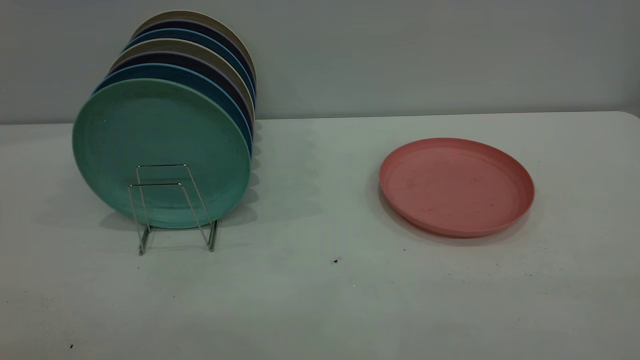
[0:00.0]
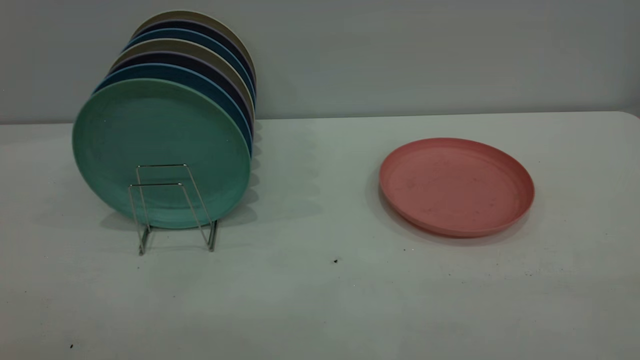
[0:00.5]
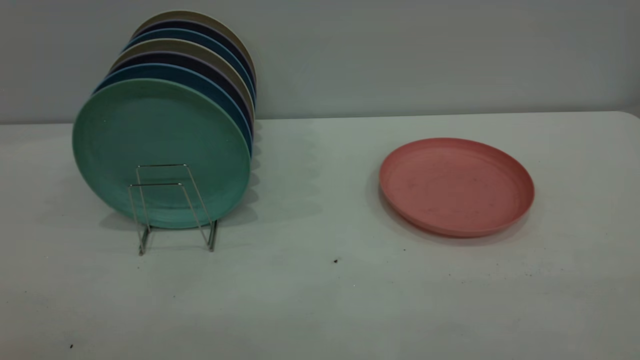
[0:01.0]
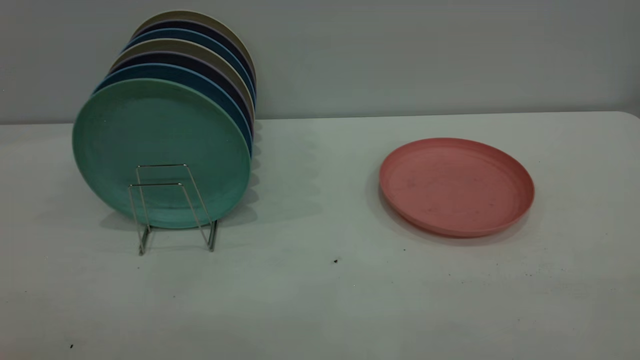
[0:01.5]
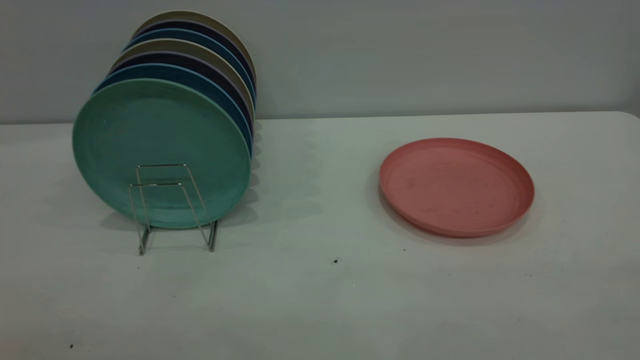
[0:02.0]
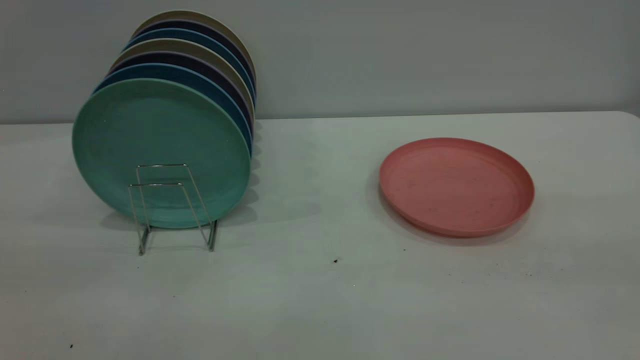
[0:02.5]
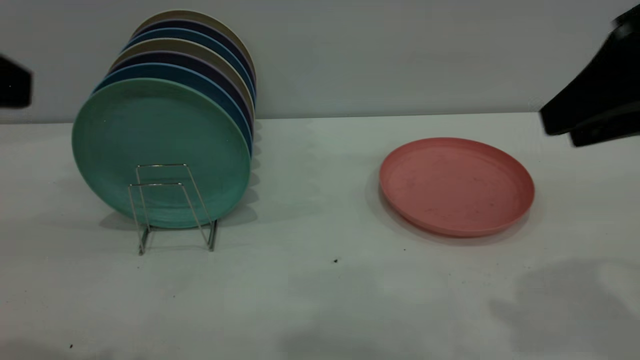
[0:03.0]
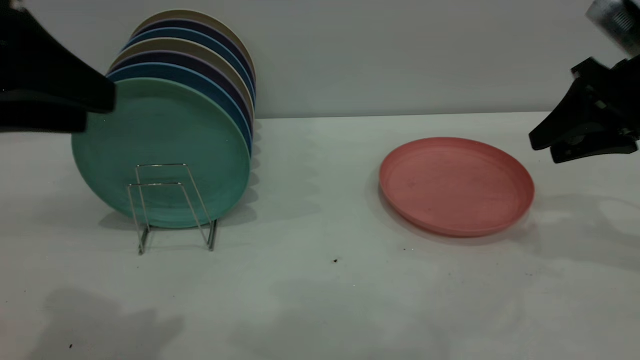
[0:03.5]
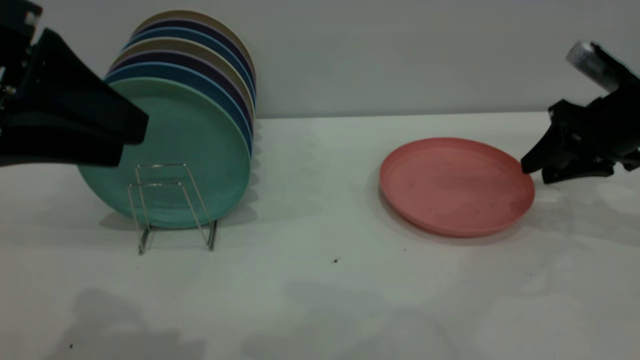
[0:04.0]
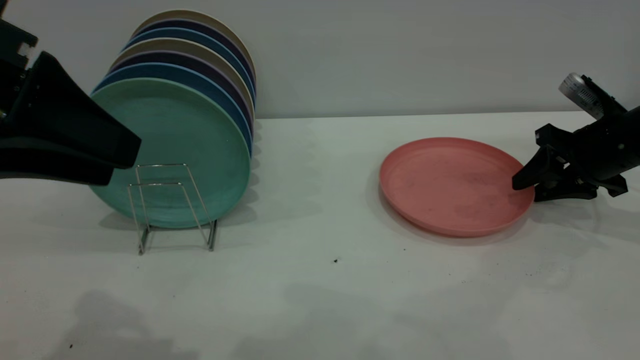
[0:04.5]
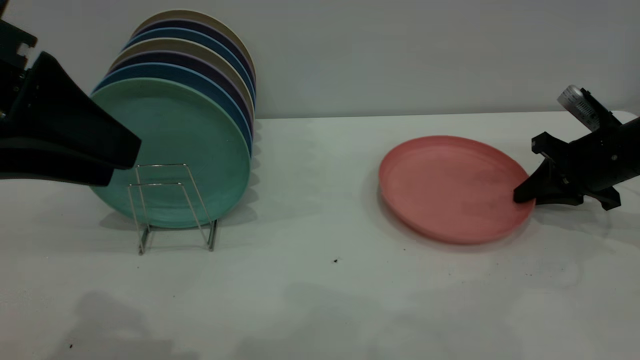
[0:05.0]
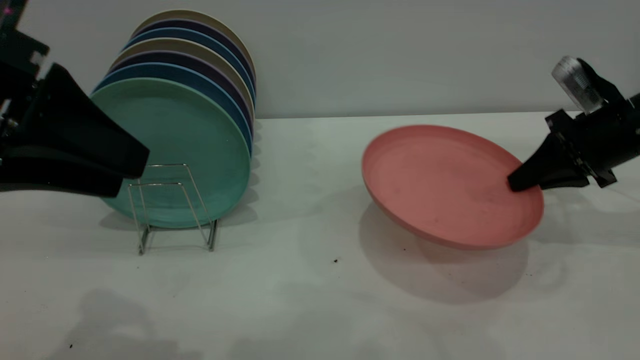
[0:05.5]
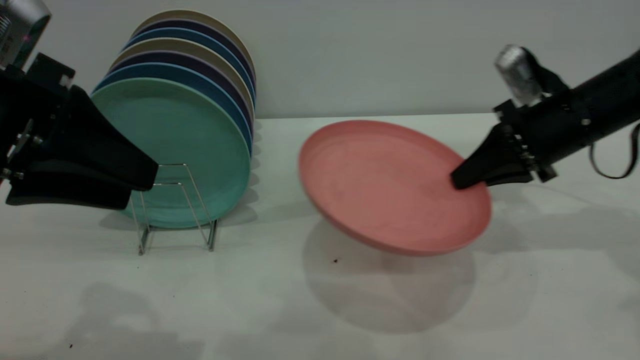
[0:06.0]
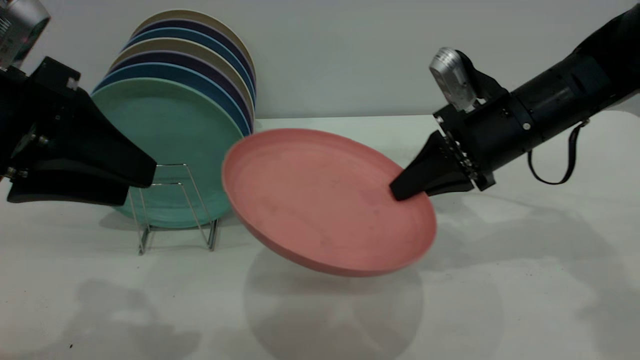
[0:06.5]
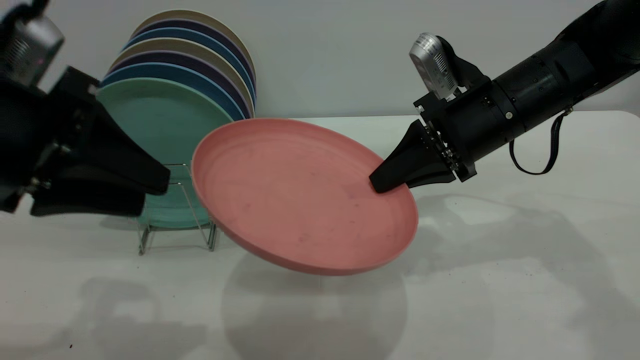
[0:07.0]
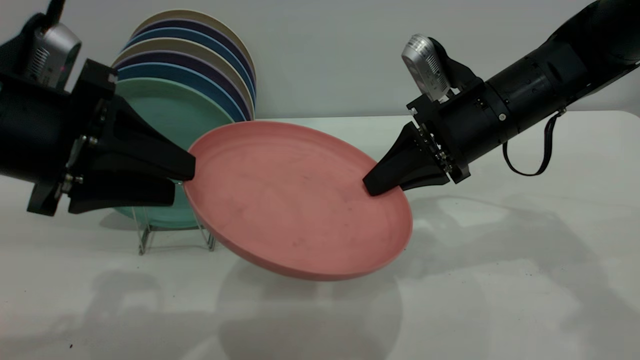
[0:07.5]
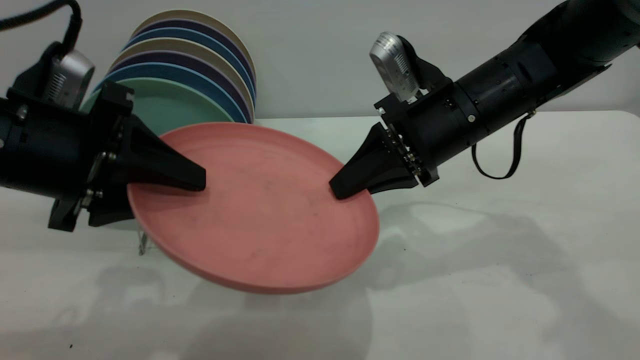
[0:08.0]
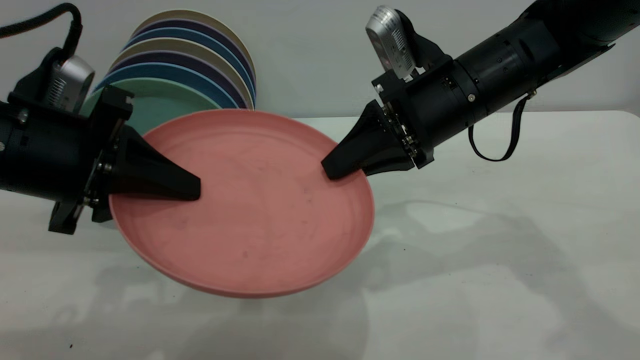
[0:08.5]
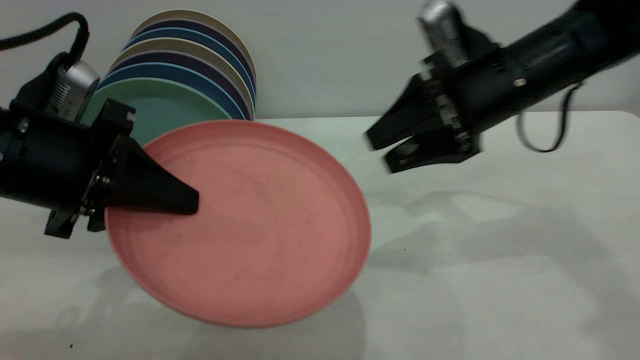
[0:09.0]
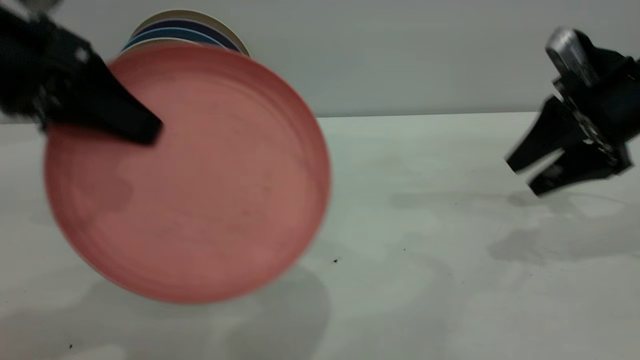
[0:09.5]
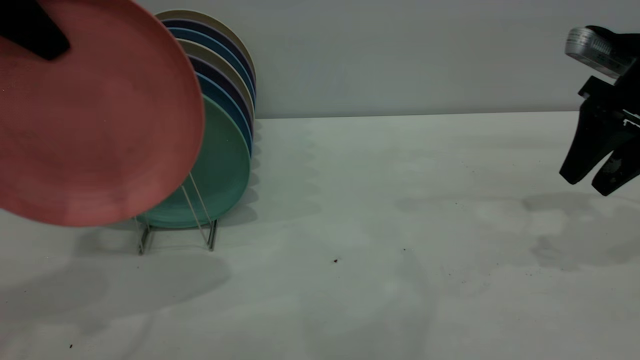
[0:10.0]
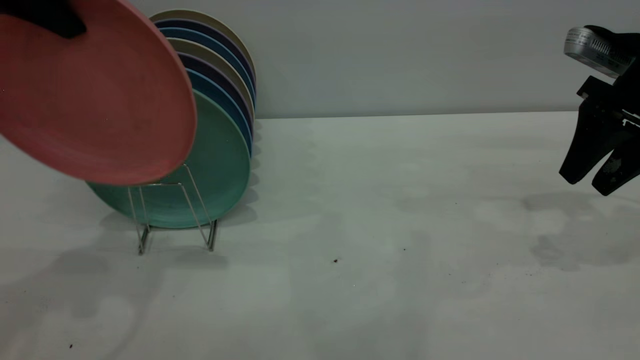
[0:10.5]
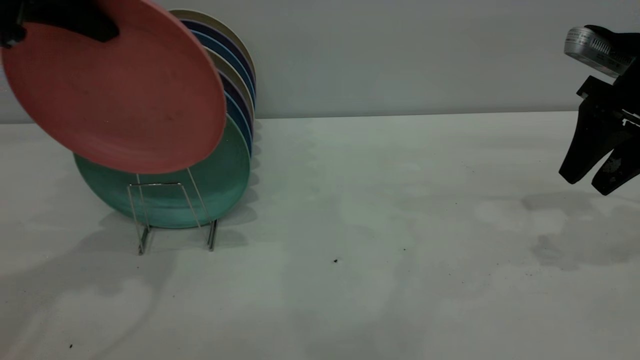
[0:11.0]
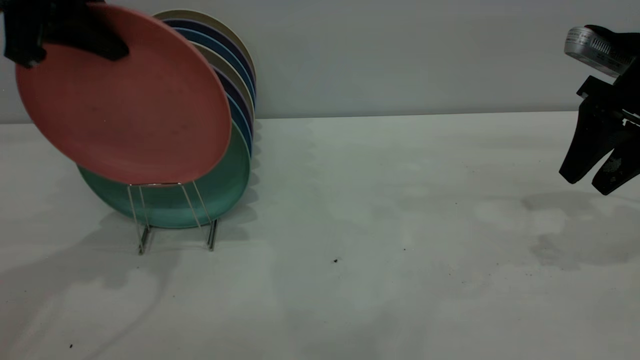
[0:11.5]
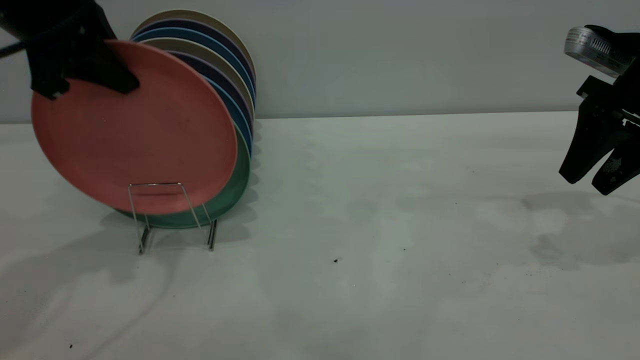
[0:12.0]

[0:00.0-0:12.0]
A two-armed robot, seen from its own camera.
Task of the whole recording: the right gripper grasp the pink plate, the right gripper pass the pink plate to the left gripper, and the left gripper place the pink plate on the plate rack.
Step, 0:00.0 to 0:05.5: Pick up the plate with the right gripper.
Step, 0:06.0 to 0:09.5: Pass the plate from the right gripper to the left gripper.
0:02.0 to 0:04.0: The left gripper heads forward, covering about 25 cm, while the right gripper moves forward and downward, some 50 cm.
0:04.0 to 0:06.0: The right gripper shifts roughly 10 cm to the left, and closes up.
0:06.0 to 0:08.0: The right gripper moves to the left, roughly 10 cm. Meanwhile the left gripper goes approximately 5 cm downward.
0:08.0 to 0:10.0: The left gripper goes some 15 cm upward, and closes. The right gripper is displaced to the right by about 20 cm, and opens up.
0:10.0 to 0:12.0: The left gripper moves downward and forward, roughly 10 cm.

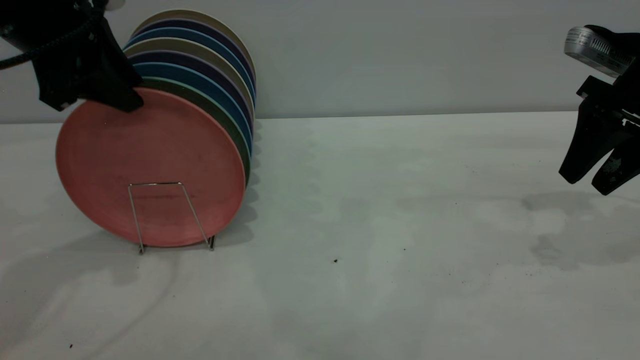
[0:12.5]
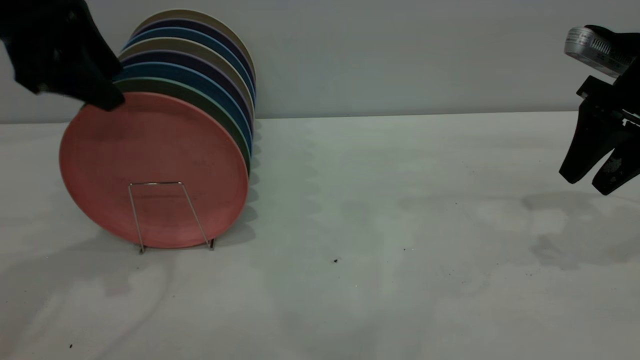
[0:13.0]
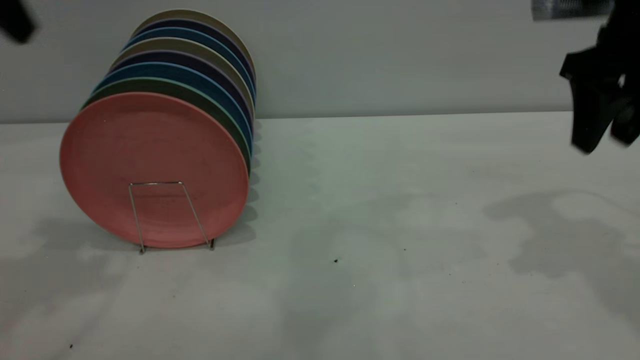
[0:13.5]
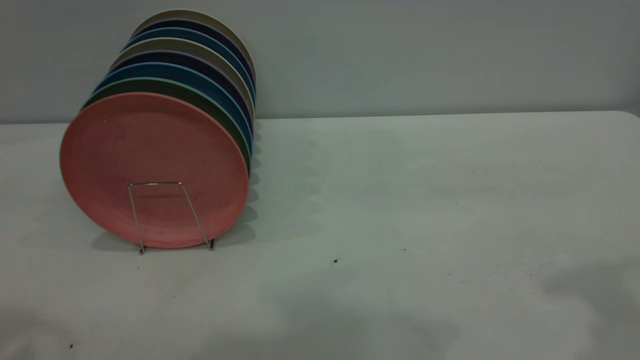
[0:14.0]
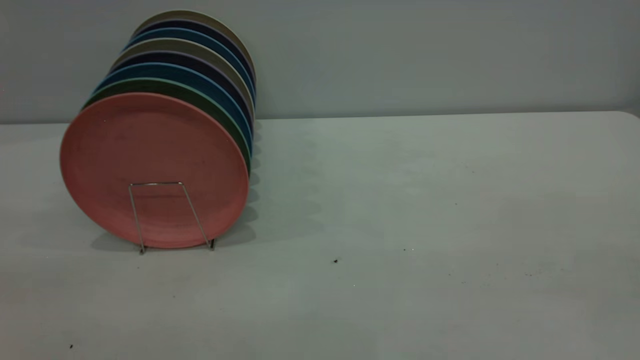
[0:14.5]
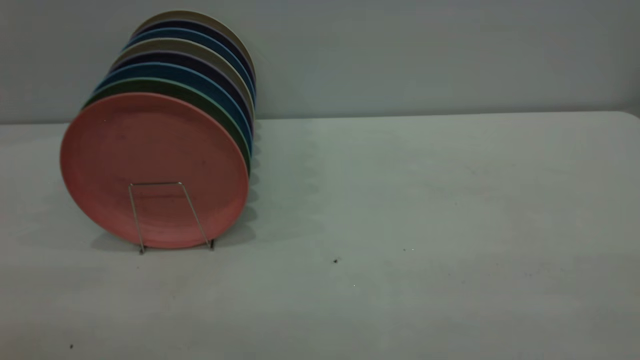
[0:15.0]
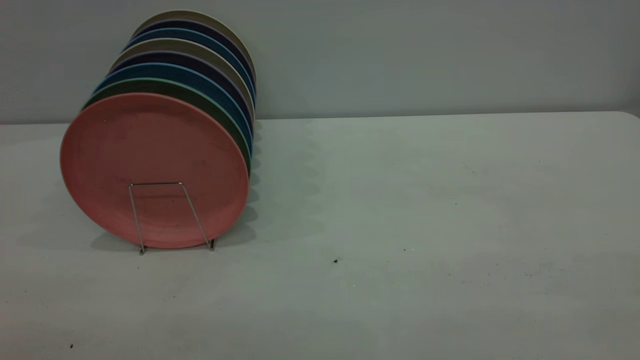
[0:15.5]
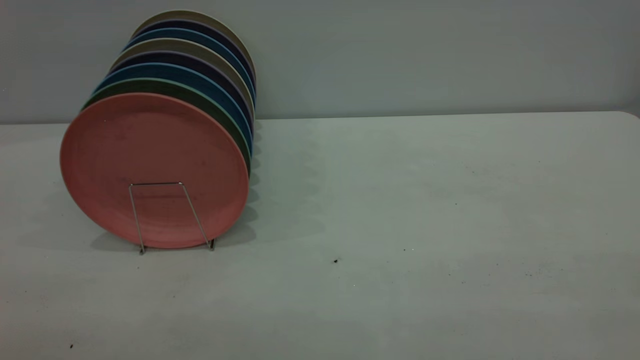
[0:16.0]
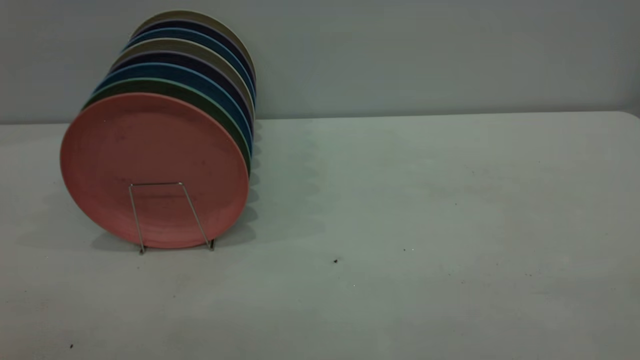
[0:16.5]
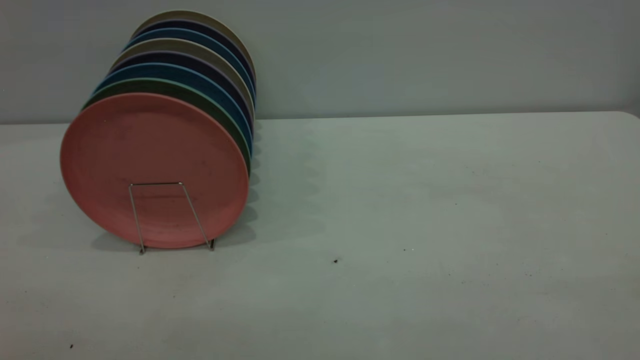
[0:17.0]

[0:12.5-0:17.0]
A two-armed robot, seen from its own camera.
Task of the whole recording: the right gripper grasp the pink plate, the right gripper pass the pink plate to the left gripper, and the left gripper place the pink plate on the plate rack.
0:12.5 to 0:14.5: The right gripper heads backward and upward, covering approximately 40 cm. The left gripper is displaced backward by about 30 cm.

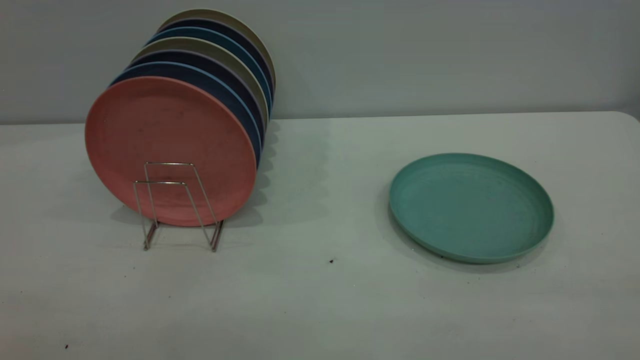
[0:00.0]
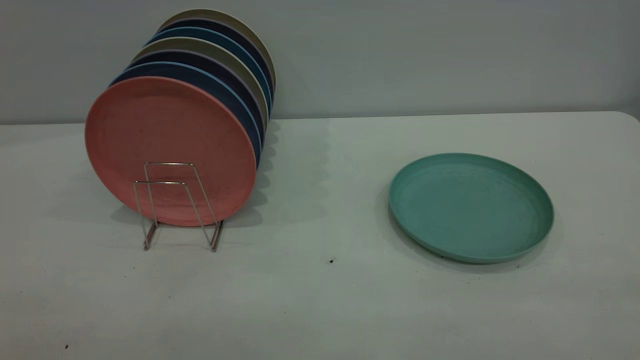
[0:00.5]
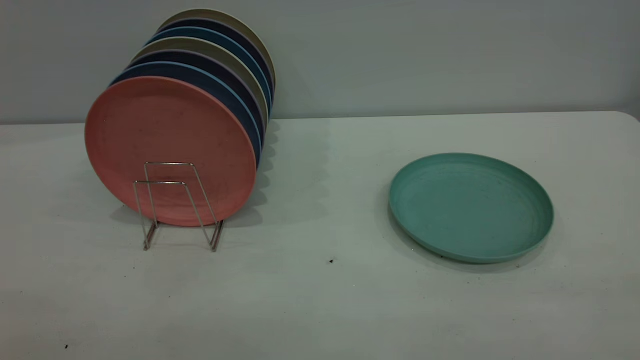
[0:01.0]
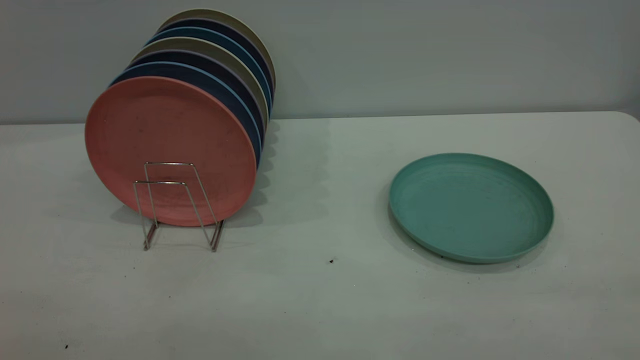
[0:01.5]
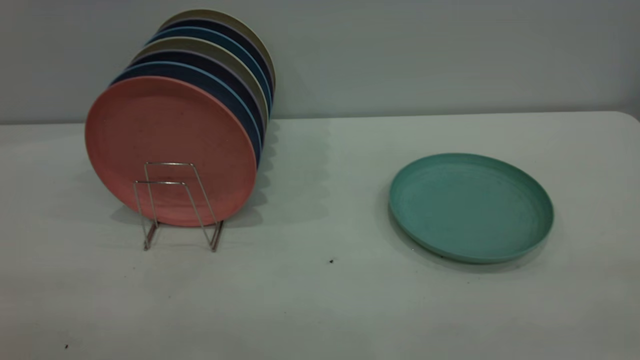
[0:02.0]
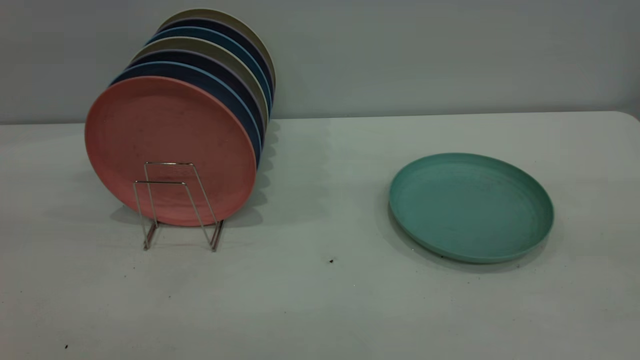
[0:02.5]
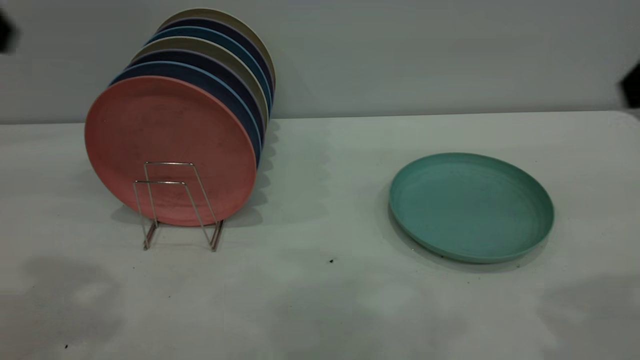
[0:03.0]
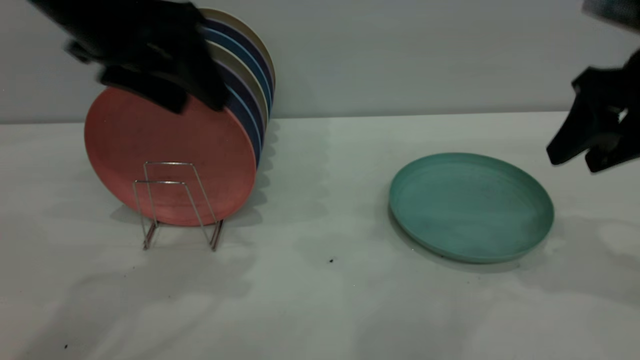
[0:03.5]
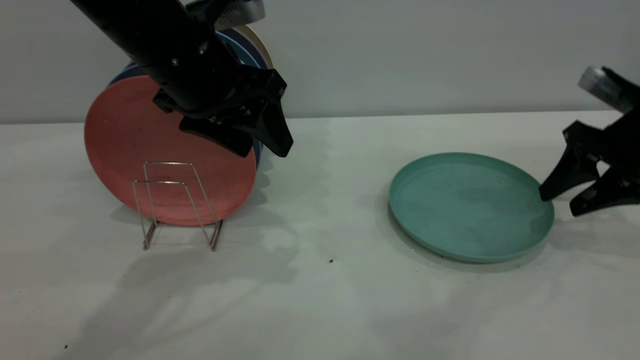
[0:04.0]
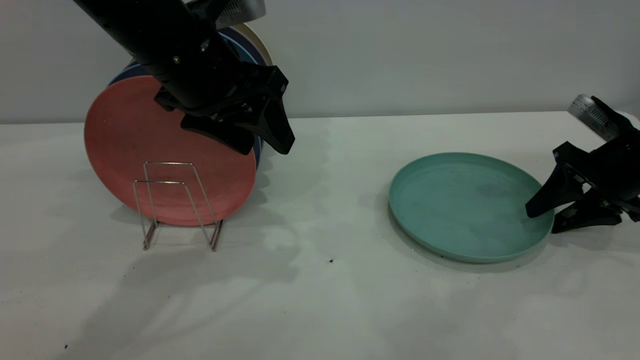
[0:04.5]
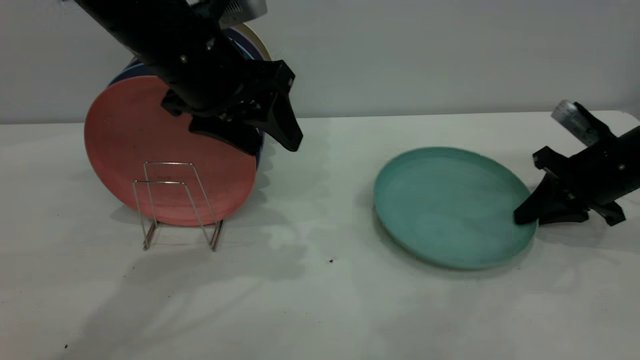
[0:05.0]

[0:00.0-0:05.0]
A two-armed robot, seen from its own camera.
Task of the whole recording: the right gripper grasp the green plate, the right gripper pass the green plate to the left gripper, and the left gripper place the green plate on the plate rack.
0:02.5 to 0:05.0: The left gripper shifts approximately 35 cm forward, to the right and downward. The right gripper is displaced downward and forward by approximately 40 cm, and closes its fingers.
